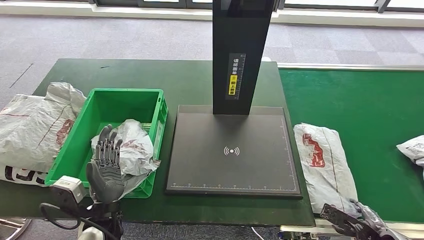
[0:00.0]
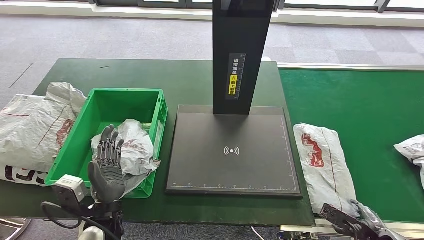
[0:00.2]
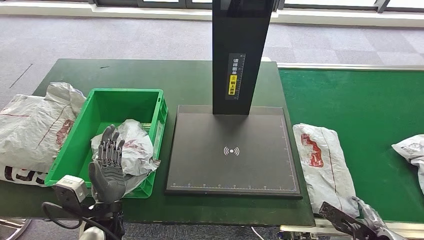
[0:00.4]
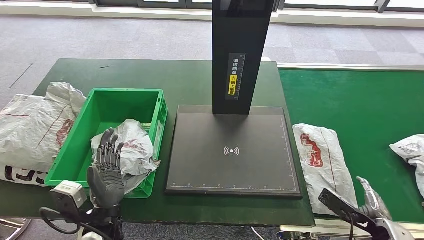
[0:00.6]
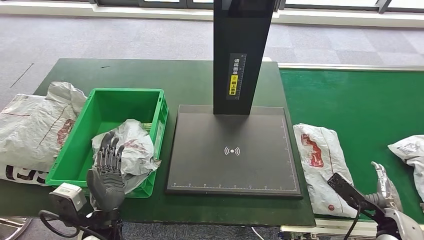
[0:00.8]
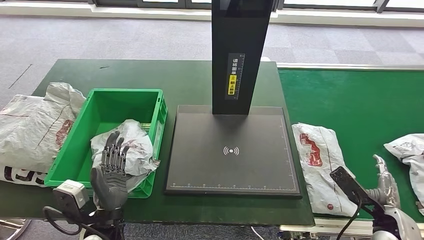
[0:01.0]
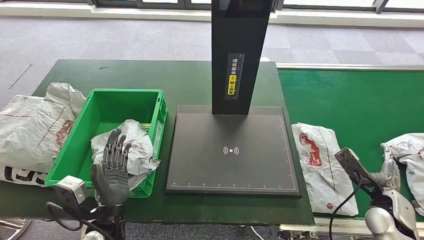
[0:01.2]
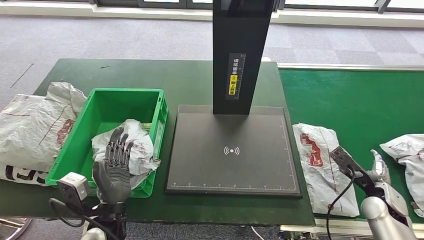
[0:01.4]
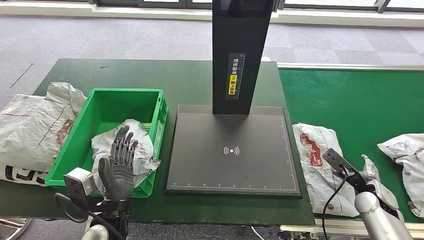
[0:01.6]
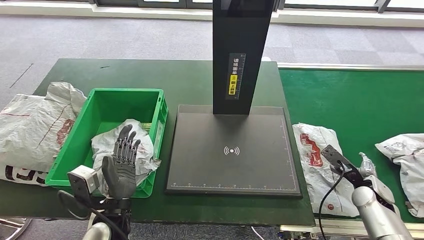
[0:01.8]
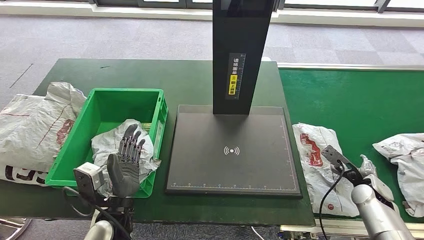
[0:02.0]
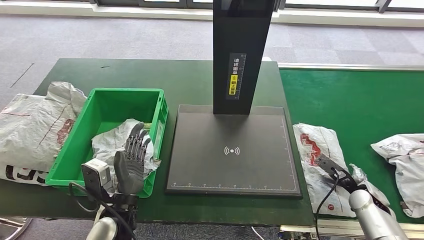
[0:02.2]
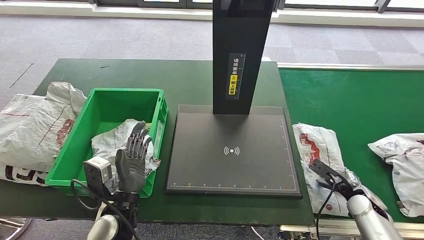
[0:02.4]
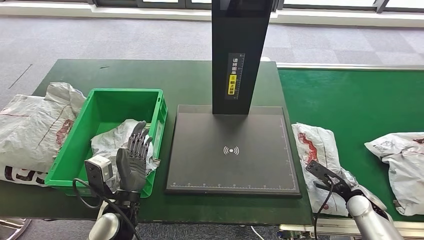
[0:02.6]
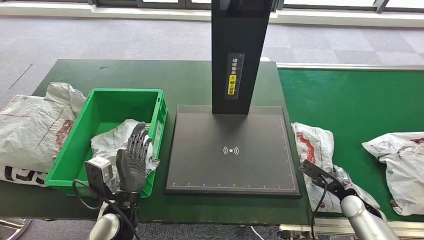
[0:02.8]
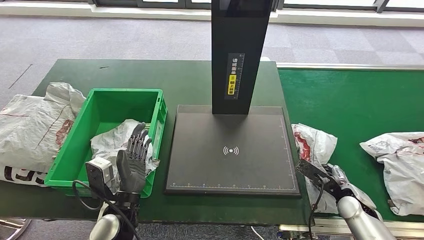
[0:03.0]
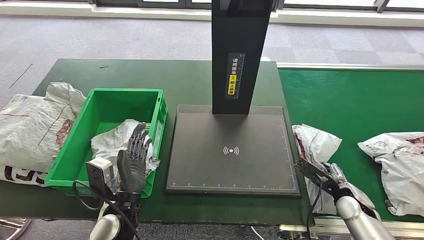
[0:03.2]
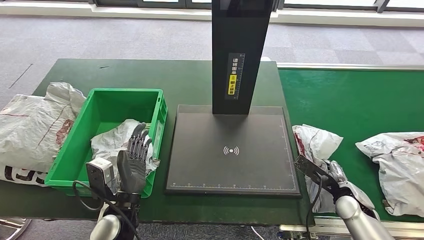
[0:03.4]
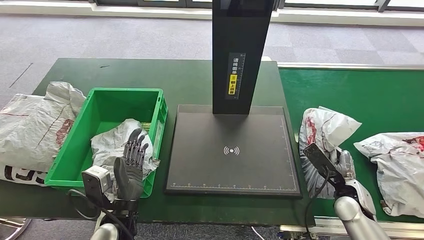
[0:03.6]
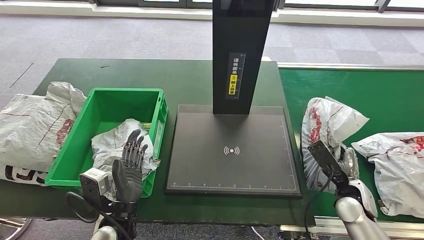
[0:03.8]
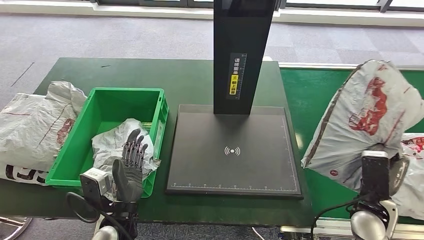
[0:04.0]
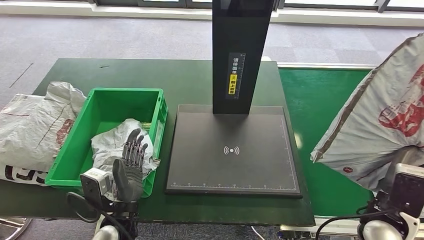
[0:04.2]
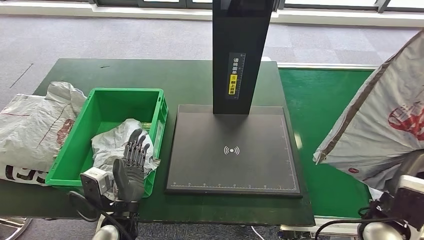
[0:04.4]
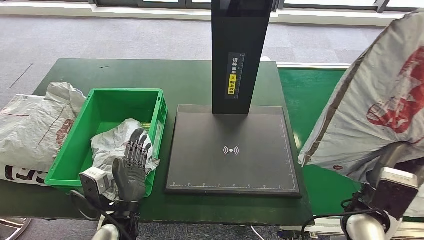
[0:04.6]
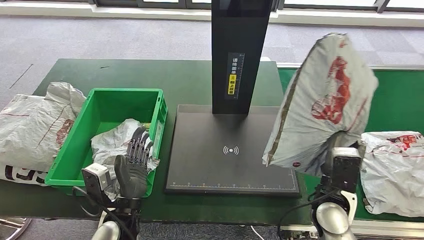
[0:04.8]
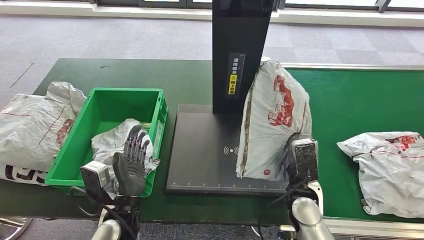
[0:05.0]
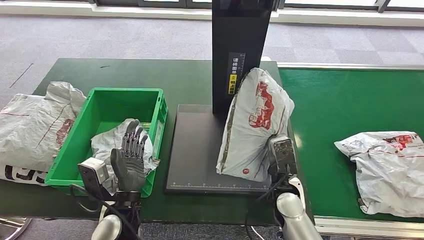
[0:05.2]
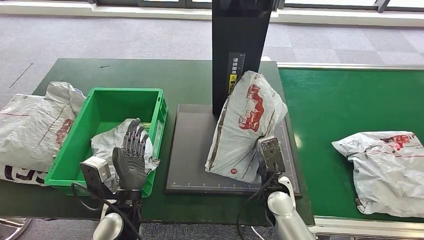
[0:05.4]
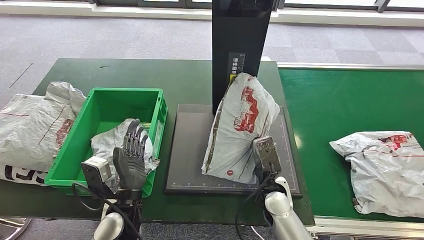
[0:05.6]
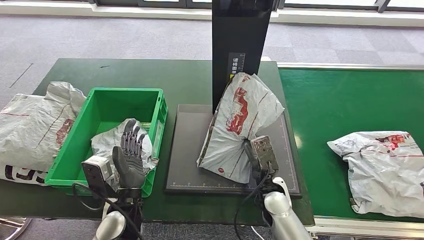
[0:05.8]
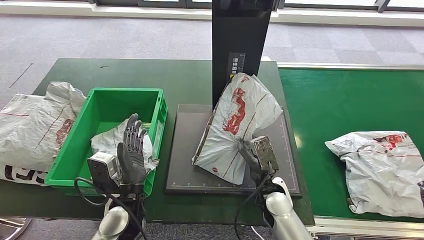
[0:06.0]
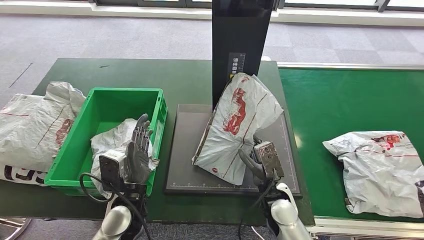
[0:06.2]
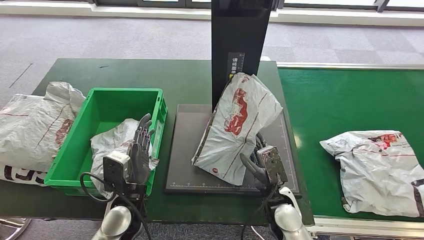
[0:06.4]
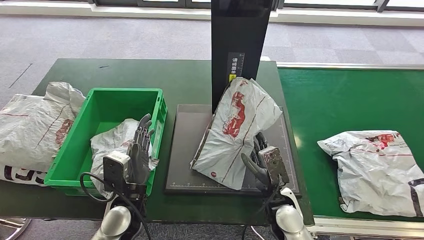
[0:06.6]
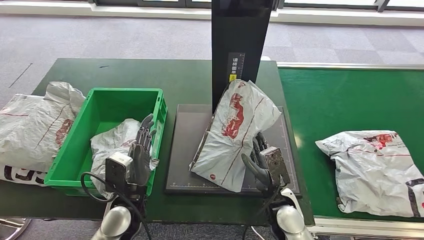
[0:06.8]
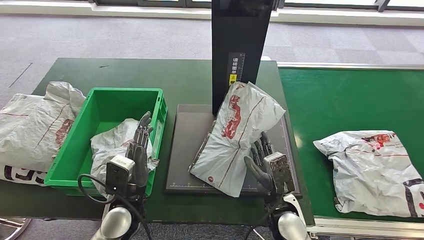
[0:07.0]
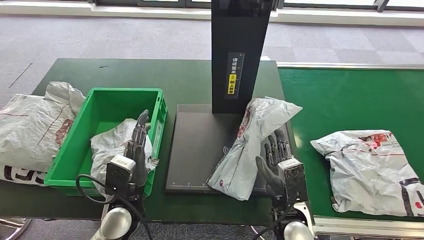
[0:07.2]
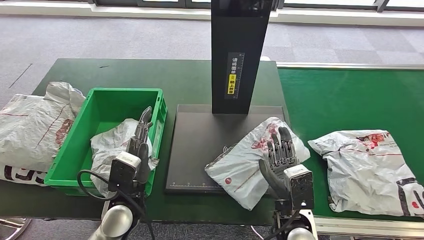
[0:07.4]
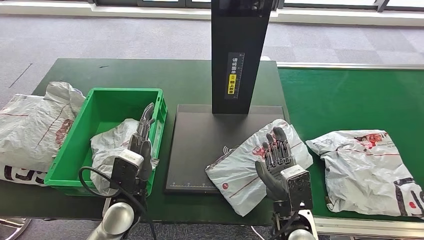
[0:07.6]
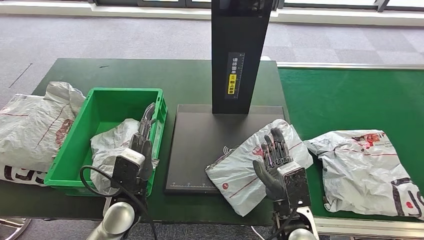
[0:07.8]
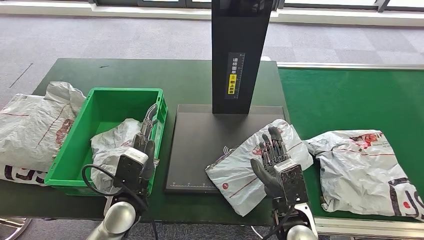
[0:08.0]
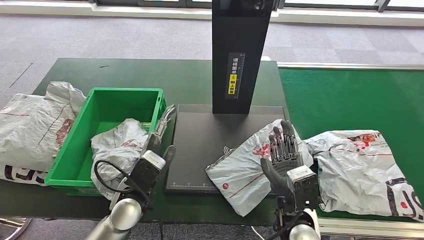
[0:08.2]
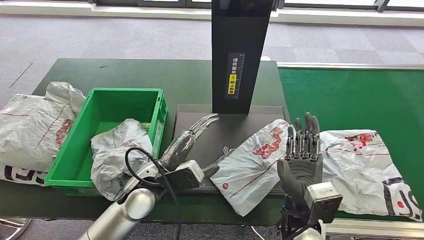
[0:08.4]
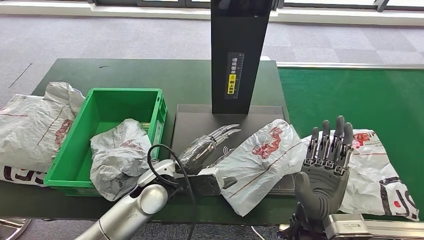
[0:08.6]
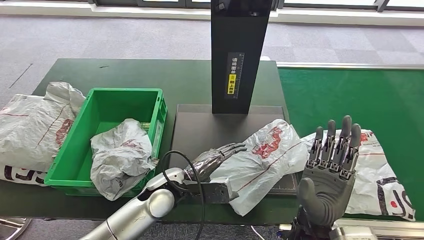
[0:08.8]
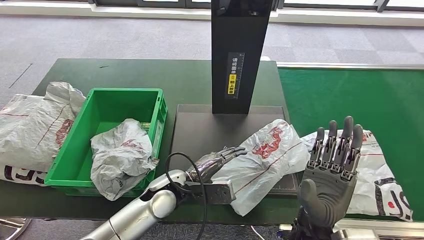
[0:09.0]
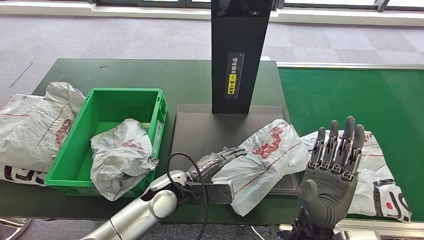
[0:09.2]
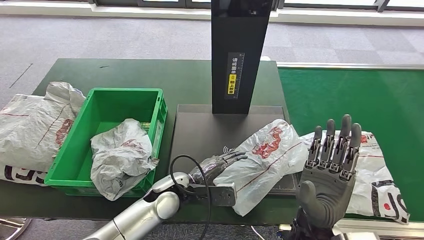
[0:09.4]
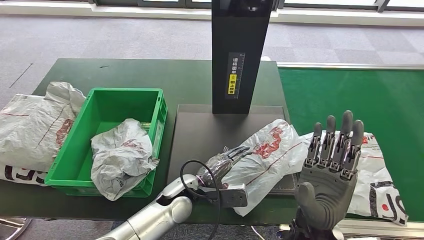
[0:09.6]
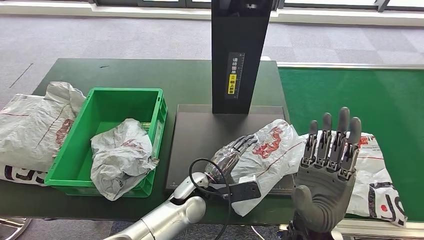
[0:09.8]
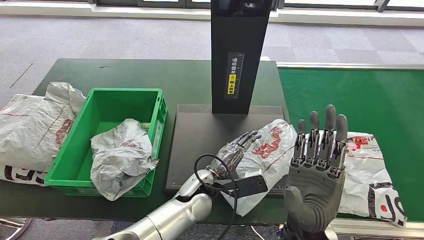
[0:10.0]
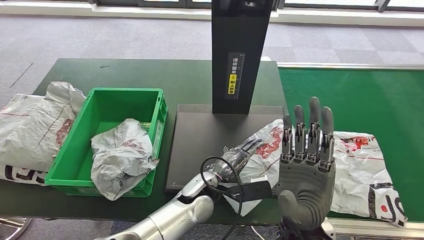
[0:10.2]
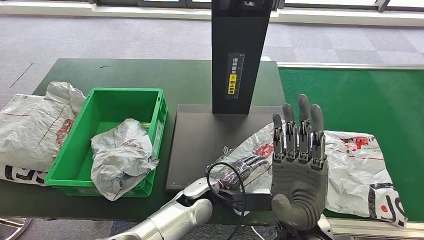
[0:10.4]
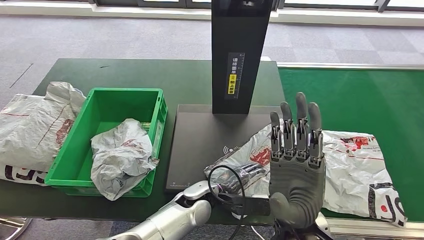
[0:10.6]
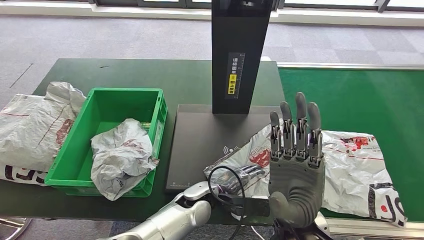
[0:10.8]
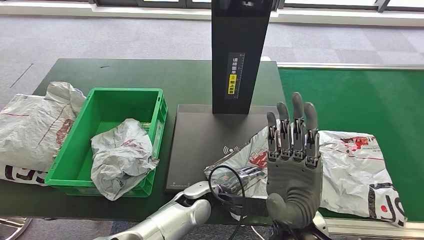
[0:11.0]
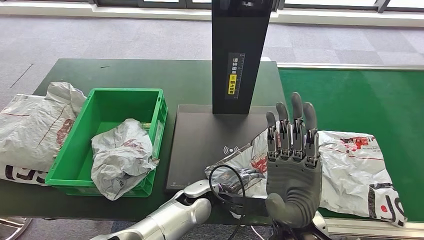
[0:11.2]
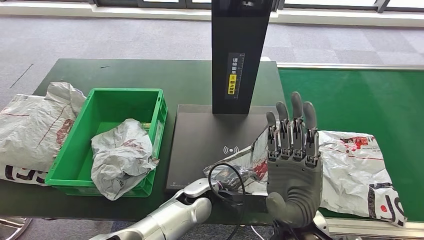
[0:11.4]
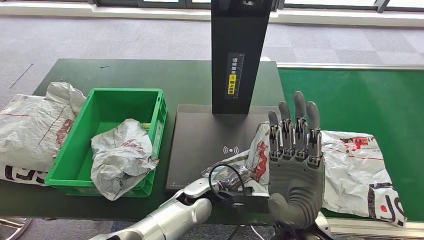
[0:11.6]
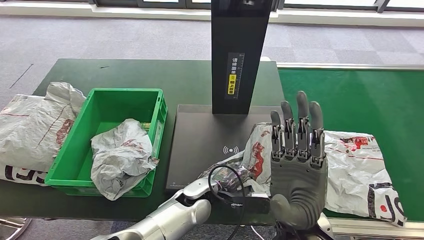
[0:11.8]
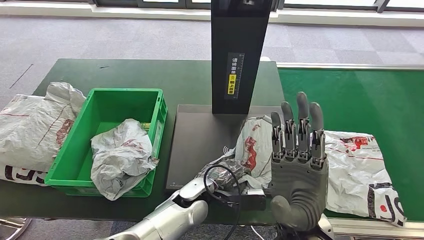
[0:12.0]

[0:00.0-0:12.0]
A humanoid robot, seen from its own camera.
Step, 0:00.0 to 0:05.0: Pick up the parcel from the conveyor belt.
Step, 0:05.2 to 0:08.2: Place the parcel onto the inbound machine.
0:00.0 to 0:01.6: The right hand goes roughly 15 cm forward.
0:01.6 to 0:03.0: The hands stay close to where they were, moving slightly.
0:07.6 to 0:09.0: The left hand heads to the right, covering approximately 10 cm; the right hand heads upward, covering roughly 5 cm.
0:09.0 to 0:10.4: The right hand ends up approximately 5 cm from where it was, while the left hand moves to the right, some 10 cm.
0:10.4 to 0:12.0: There are only small adjustments of the hands.

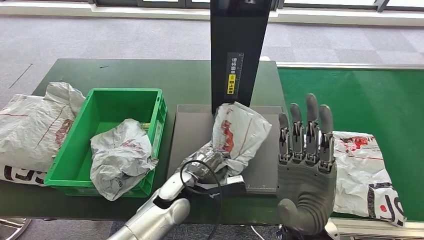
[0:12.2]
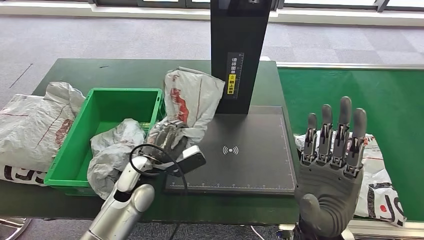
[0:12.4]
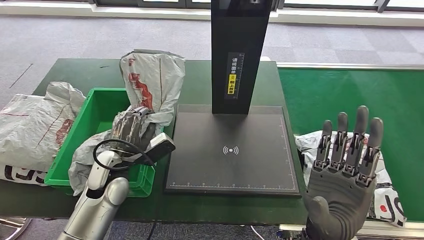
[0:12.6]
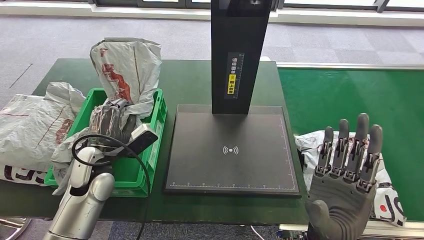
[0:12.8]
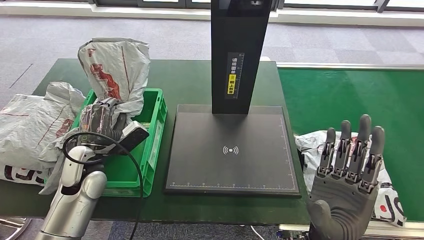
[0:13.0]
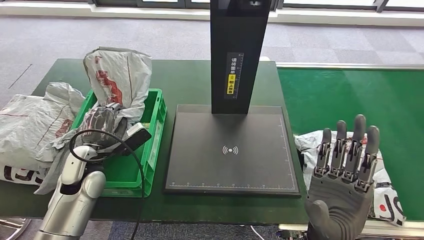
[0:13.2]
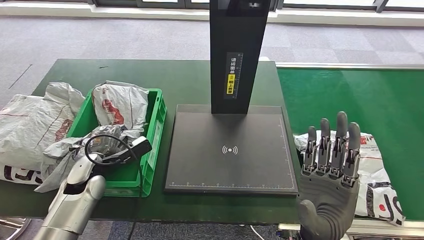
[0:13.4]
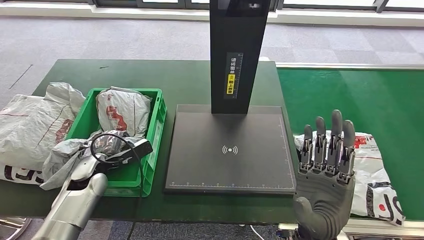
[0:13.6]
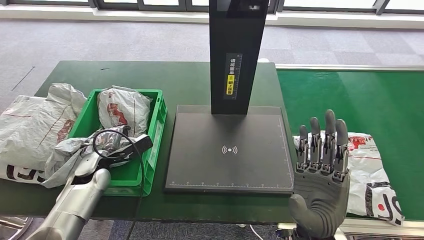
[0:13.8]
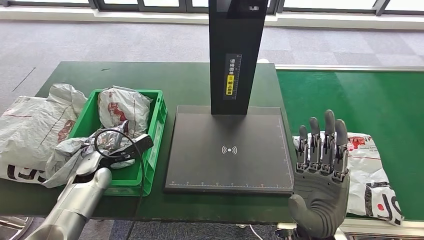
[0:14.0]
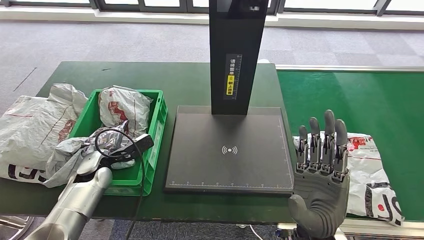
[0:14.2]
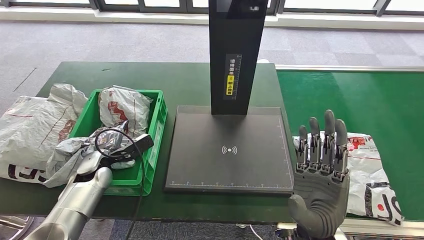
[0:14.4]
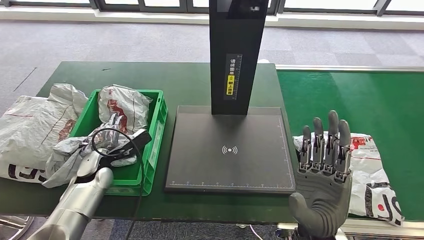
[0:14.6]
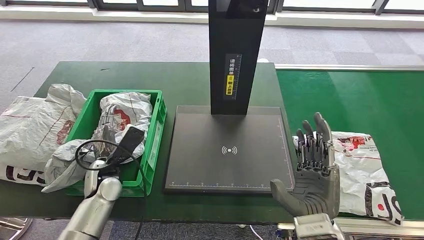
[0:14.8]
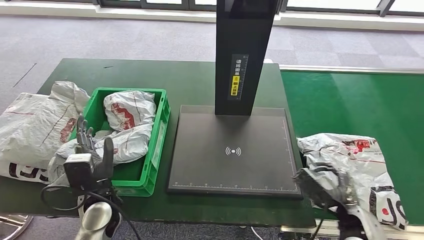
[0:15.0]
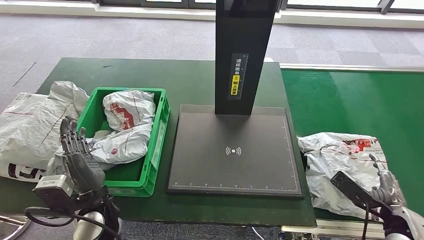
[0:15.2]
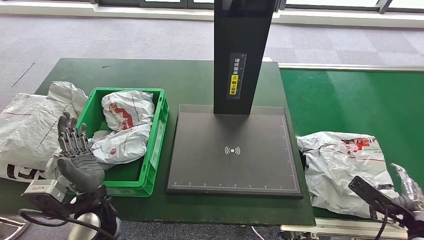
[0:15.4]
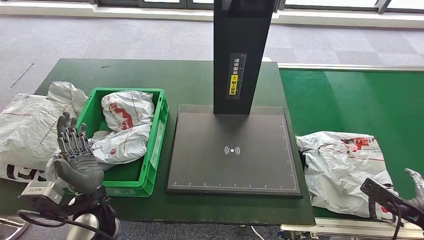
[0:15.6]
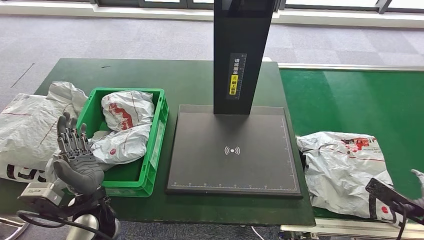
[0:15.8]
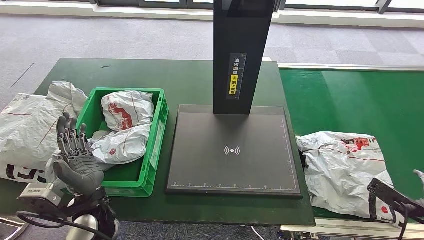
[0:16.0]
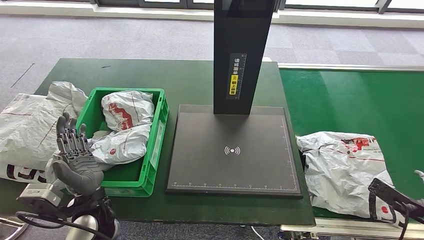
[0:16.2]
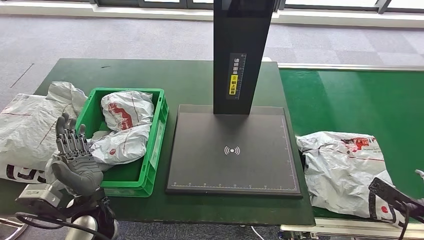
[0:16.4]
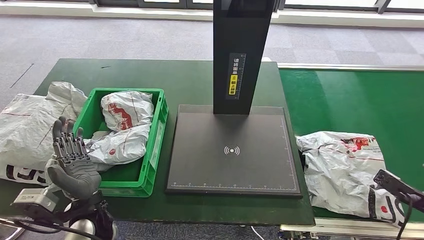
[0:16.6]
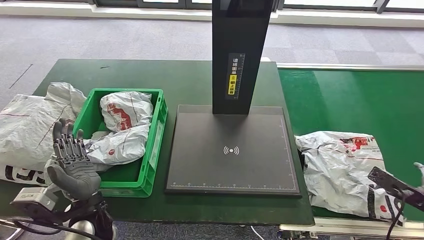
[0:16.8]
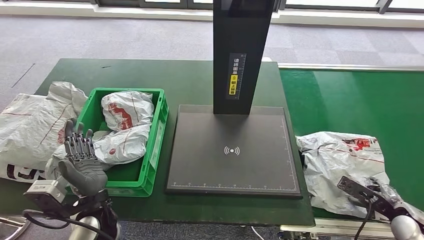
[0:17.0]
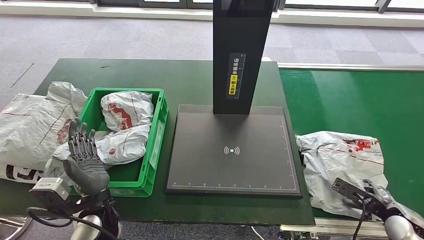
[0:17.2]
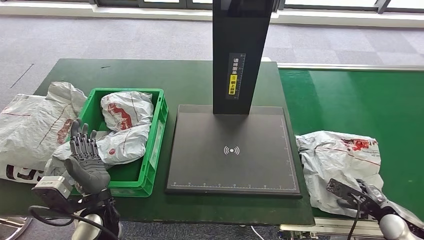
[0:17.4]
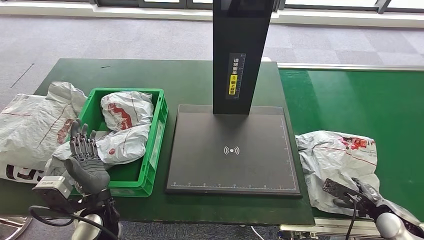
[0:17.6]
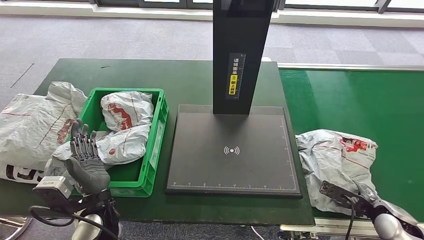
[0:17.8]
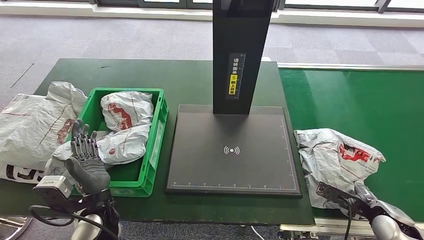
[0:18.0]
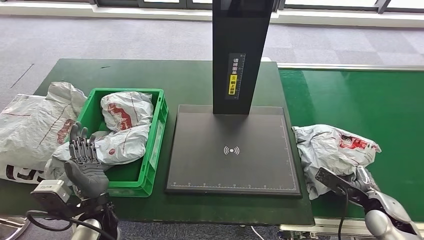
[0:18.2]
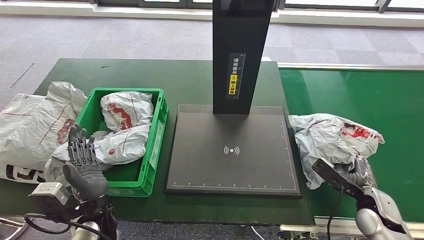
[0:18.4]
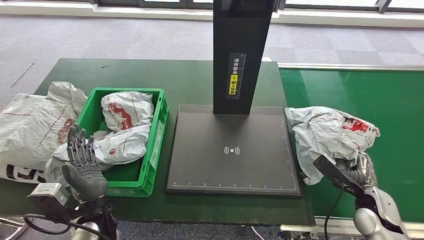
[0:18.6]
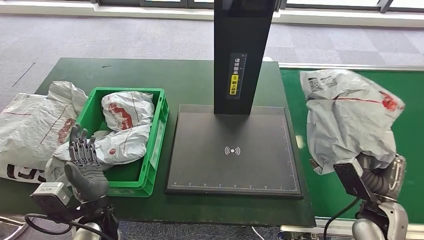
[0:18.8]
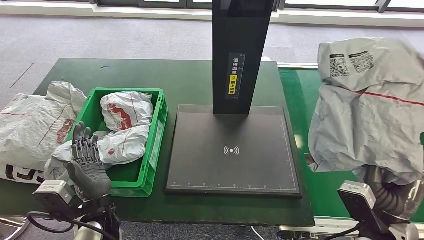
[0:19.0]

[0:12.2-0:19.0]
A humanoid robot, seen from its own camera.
Step, 0:13.0 to 0:15.6: Place the parcel into the delivery box.
0:16.2 to 0:17.6: The right hand moves downward and to the left, roughly 10 cm.
